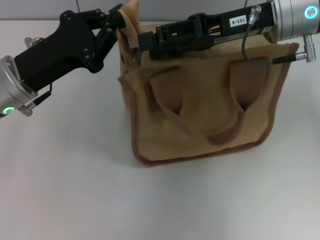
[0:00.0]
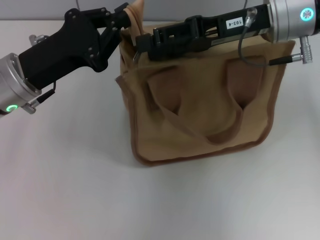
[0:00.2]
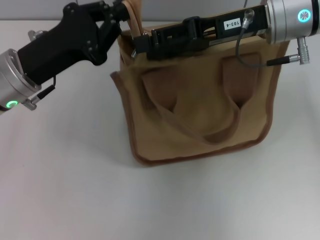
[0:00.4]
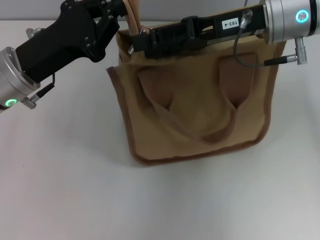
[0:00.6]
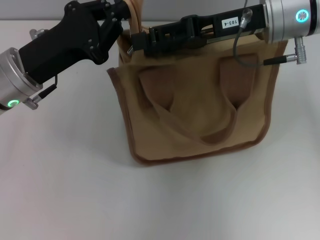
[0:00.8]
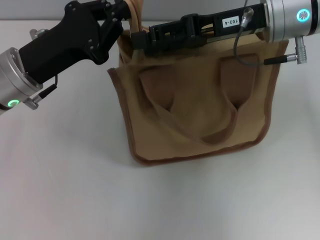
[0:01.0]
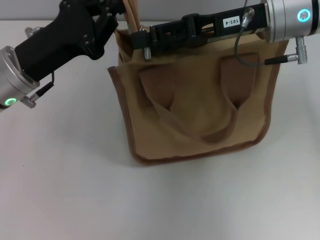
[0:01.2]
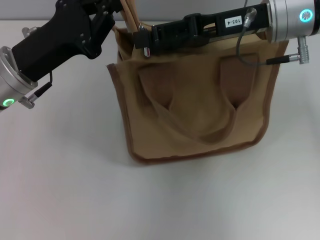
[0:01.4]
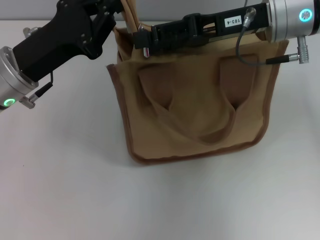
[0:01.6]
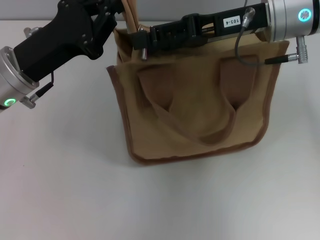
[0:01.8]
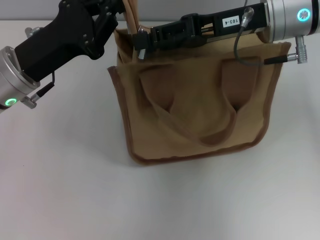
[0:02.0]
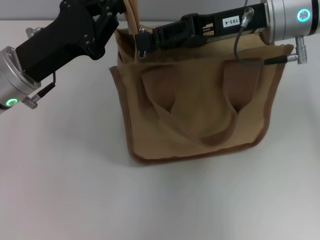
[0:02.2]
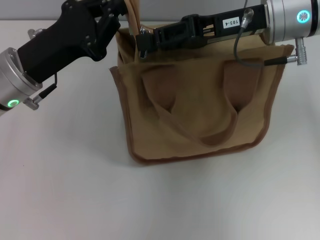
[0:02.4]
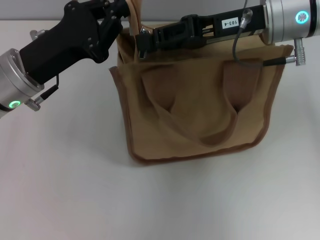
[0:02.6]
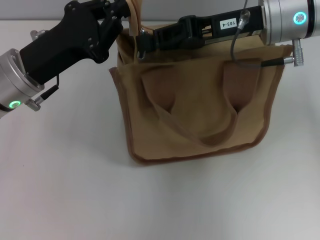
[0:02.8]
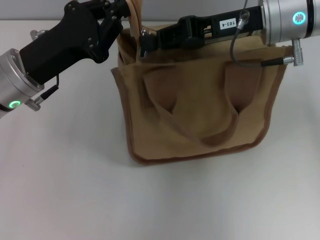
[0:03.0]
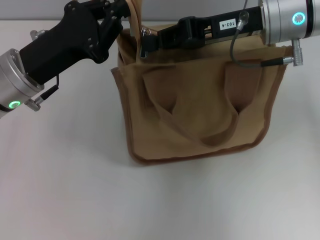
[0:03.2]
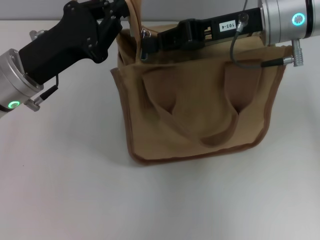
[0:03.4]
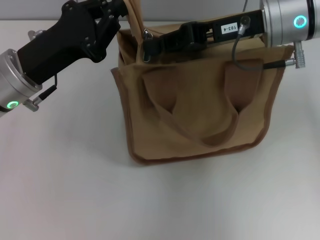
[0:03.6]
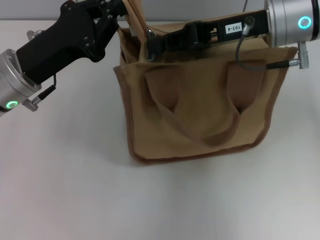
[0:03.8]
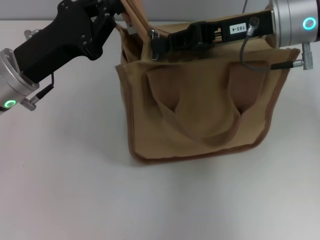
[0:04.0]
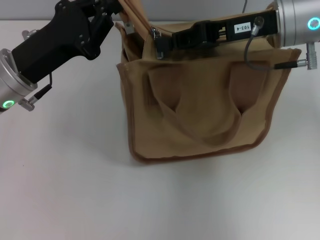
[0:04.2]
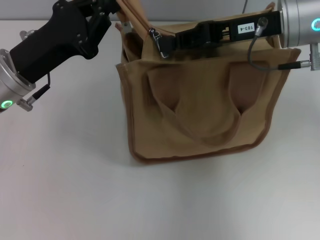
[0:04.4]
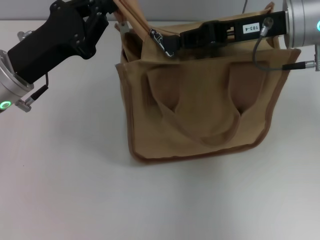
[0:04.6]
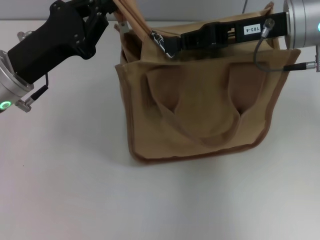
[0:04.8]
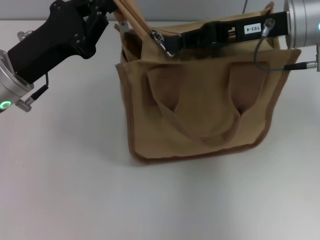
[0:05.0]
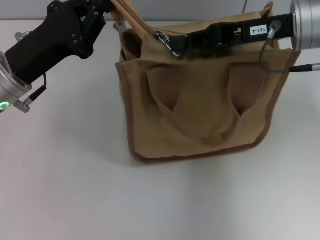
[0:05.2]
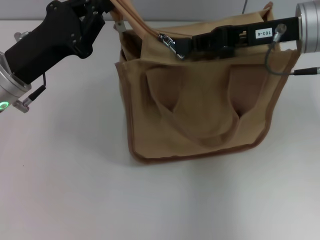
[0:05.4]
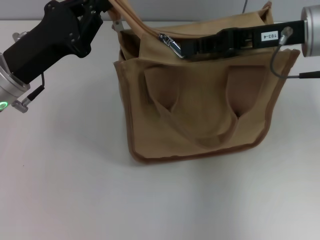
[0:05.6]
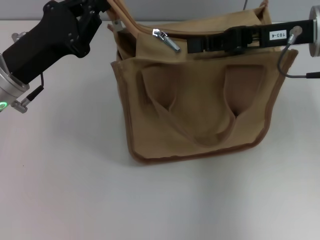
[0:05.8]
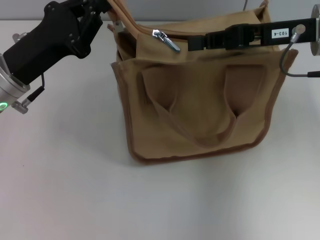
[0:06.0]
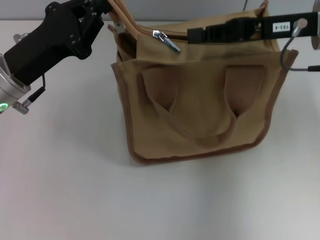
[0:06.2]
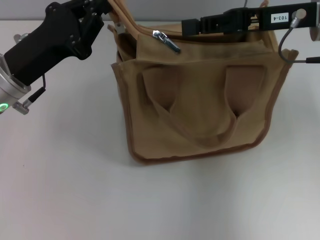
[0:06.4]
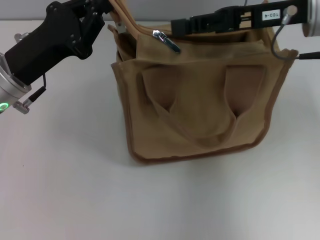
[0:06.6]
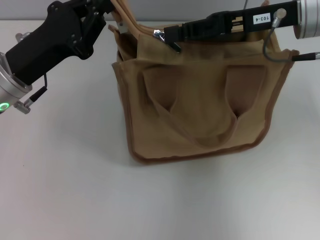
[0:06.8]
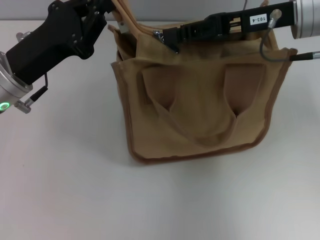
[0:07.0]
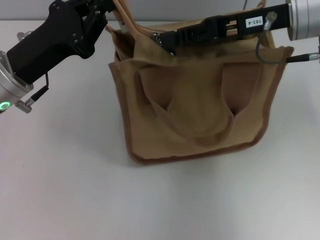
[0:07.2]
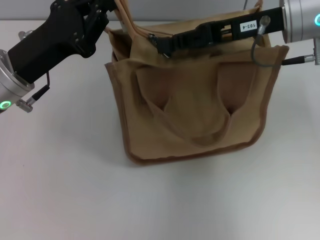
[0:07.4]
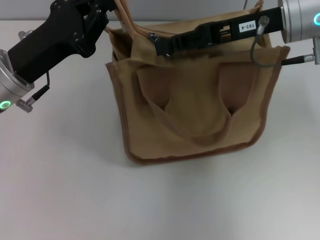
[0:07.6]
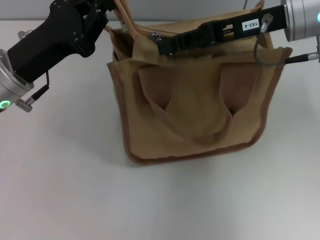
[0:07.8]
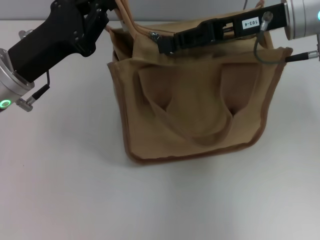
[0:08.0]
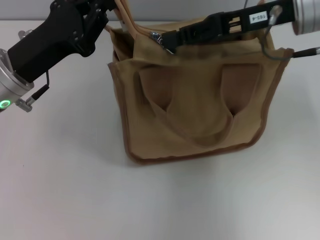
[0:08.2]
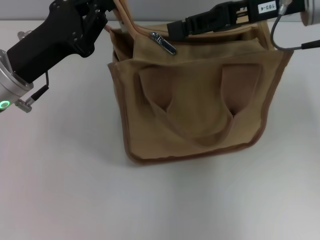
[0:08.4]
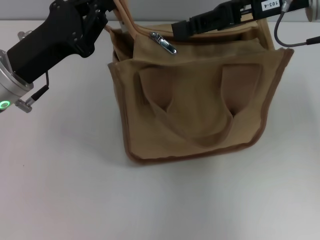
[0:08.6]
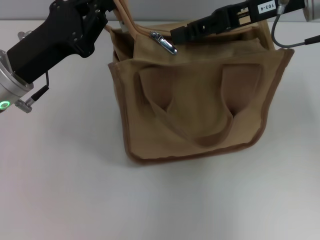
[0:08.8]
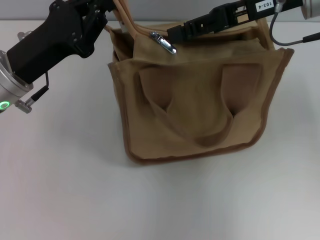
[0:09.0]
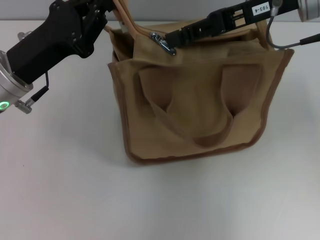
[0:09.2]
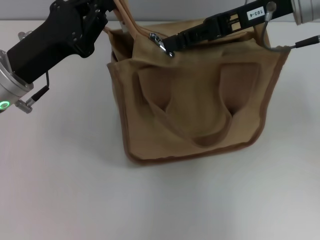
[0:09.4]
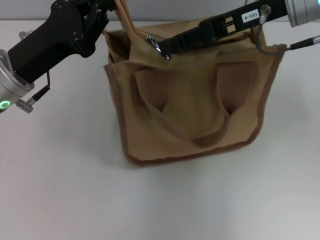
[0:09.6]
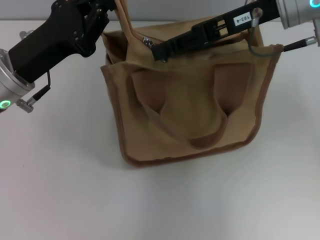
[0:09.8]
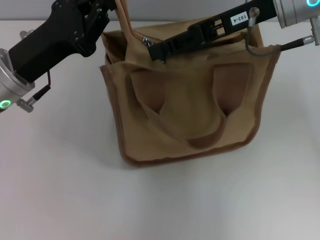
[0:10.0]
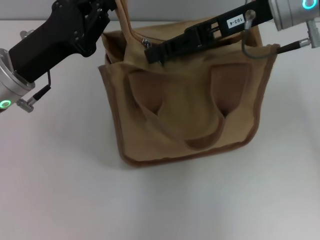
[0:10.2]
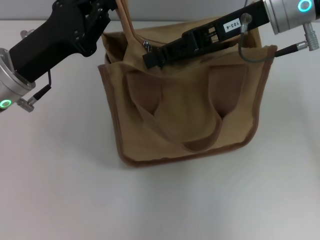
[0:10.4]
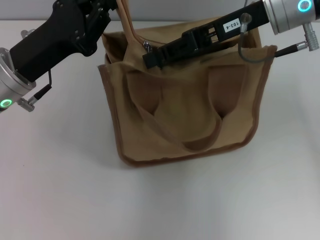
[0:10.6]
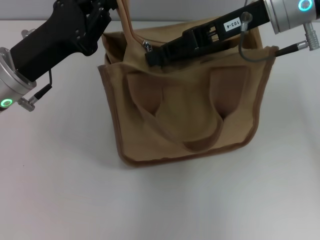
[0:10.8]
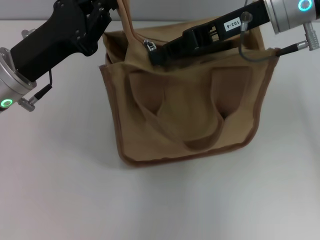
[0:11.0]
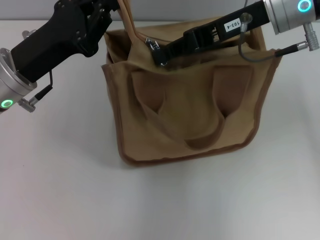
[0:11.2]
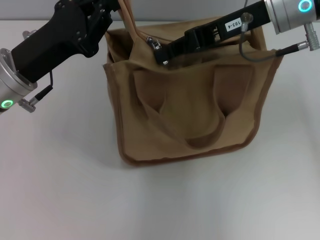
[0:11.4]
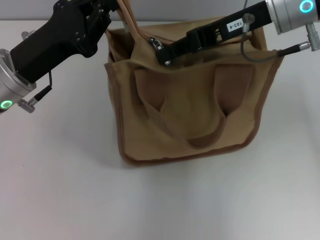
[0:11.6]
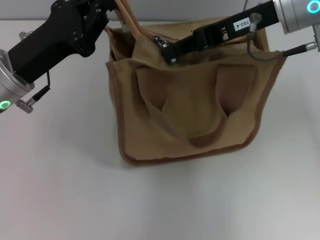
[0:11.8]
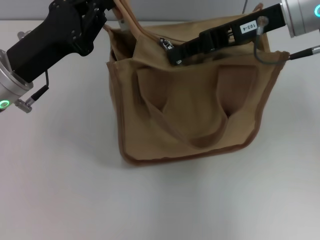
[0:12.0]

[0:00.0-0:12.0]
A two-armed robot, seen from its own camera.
0:00.0 to 0:01.6: The two grippers keep their place.
0:01.6 to 0:03.0: The right gripper closes up.
0:03.0 to 0:06.0: The grippers stay close to where they were, moving slightly.
0:06.0 to 0:07.6: The right gripper opens.
0:07.6 to 0:10.4: The grippers move only a little.
0:10.4 to 0:12.0: The right gripper closes up.

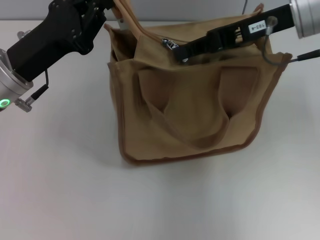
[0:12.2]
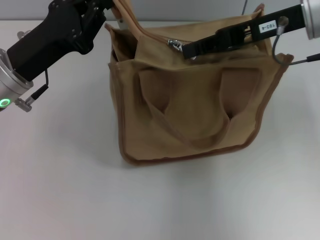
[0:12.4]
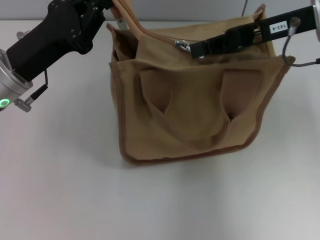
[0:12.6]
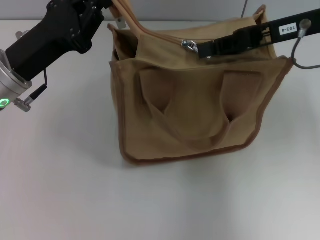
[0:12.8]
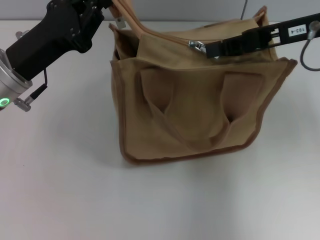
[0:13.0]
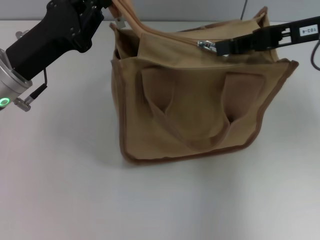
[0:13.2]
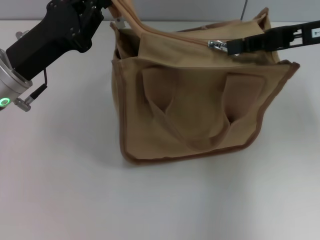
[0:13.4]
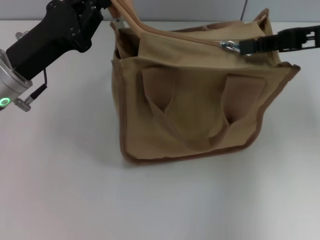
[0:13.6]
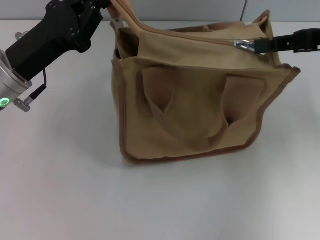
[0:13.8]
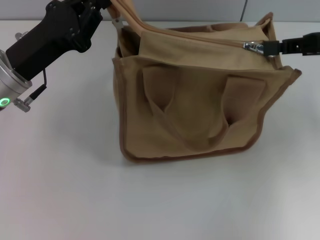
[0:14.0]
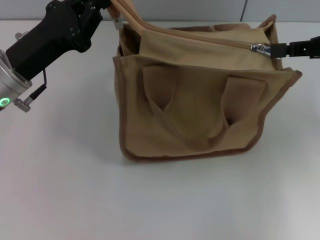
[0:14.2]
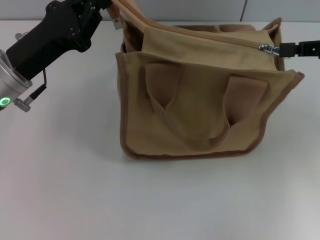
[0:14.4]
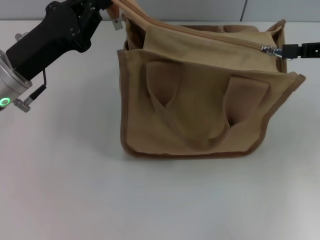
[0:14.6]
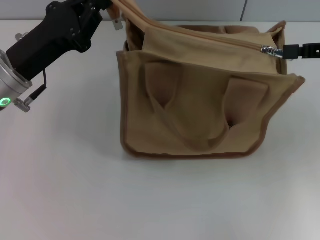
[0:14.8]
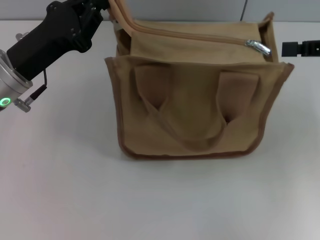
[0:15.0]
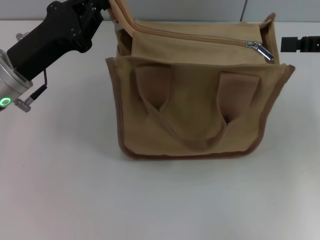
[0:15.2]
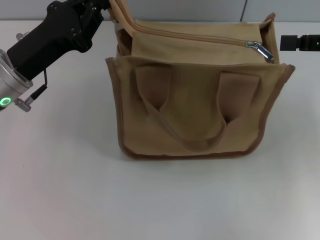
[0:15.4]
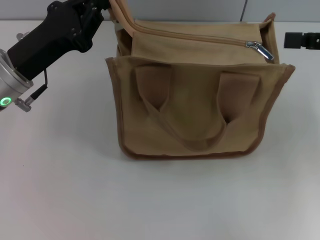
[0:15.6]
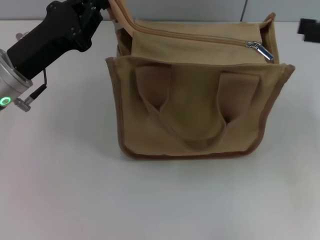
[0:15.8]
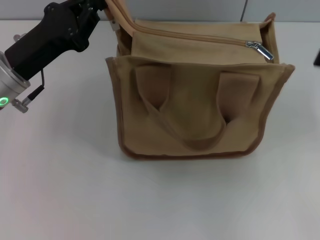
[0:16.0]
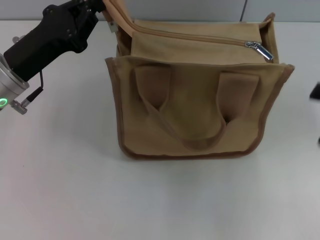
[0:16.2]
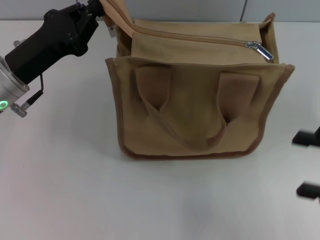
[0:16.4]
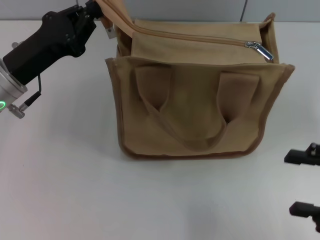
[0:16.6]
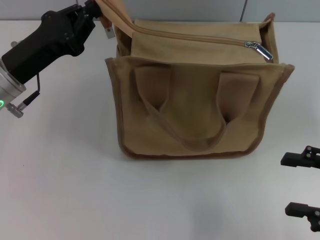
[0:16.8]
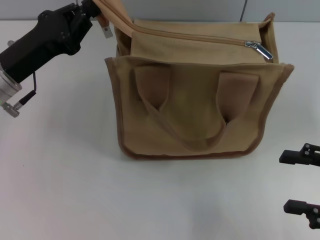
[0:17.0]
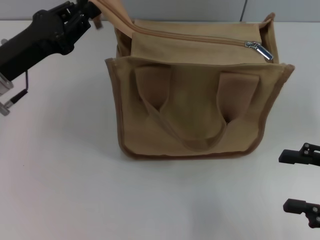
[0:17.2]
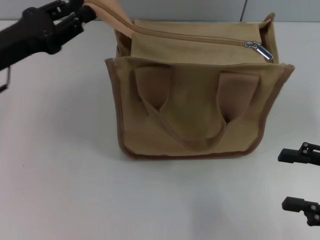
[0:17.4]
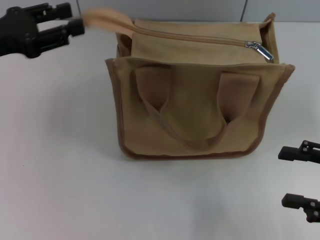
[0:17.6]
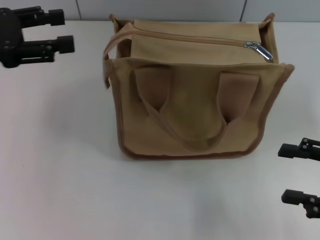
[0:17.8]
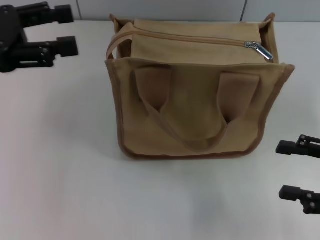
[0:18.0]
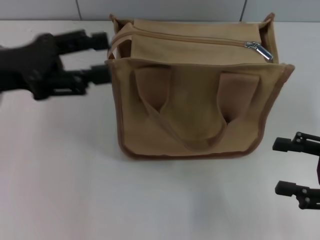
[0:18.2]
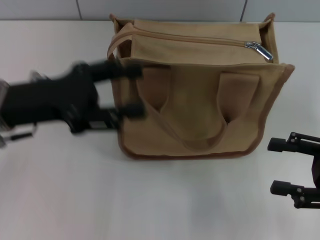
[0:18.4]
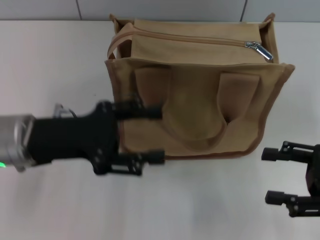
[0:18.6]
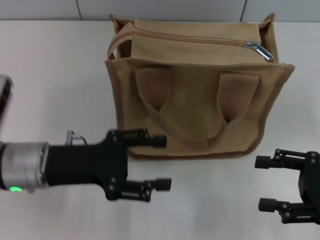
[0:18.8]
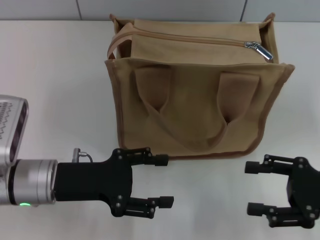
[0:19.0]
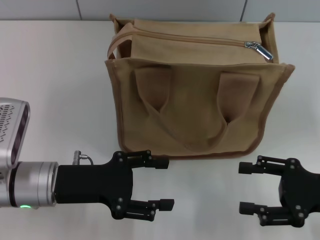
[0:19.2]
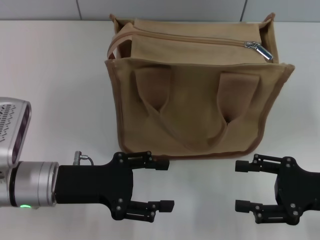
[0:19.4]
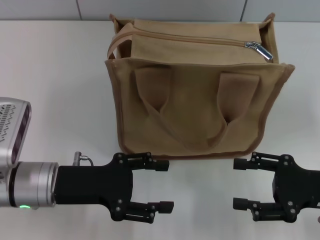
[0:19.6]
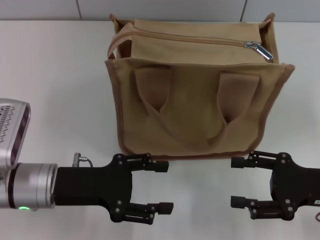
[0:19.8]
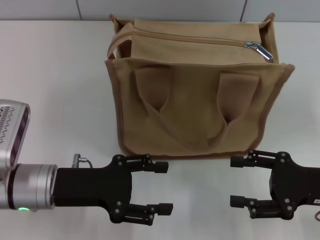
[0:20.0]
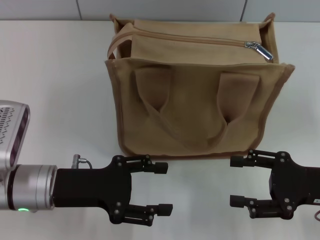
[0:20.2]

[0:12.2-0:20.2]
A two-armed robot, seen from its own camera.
Step, 0:12.2 to 0:15.2: Pull up the zipper with your right hand.
Step, 0:15.4 to 0:18.0: Grab the zipper with your left hand.
0:12.2 to 0:13.8: The right gripper shifts roughly 10 cm to the right.
0:13.8 to 0:15.4: The right gripper opens its fingers.
0:15.4 to 0:17.0: The right gripper heads backward and downward, covering some 15 cm, and opens.
0:17.0 to 0:18.6: The left gripper moves roughly 5 cm to the left and comes back, and opens.
0:18.6 to 0:20.2: The left gripper shifts approximately 5 cm downward.

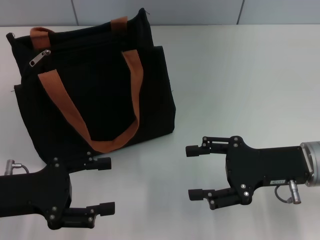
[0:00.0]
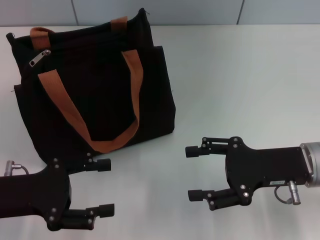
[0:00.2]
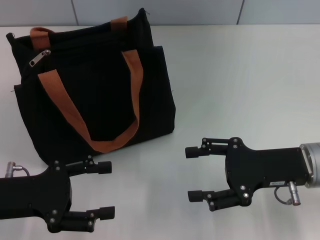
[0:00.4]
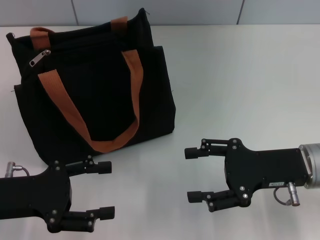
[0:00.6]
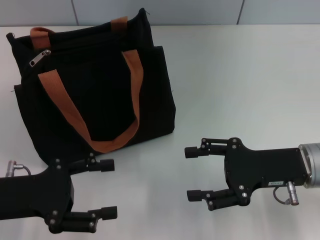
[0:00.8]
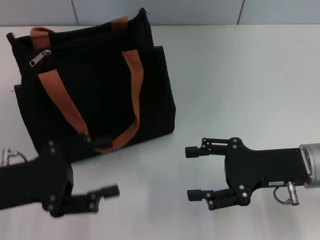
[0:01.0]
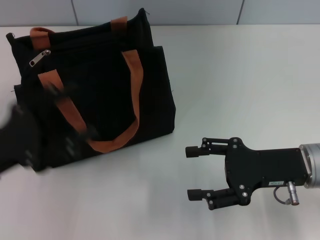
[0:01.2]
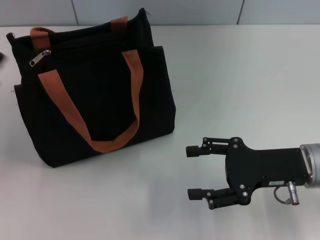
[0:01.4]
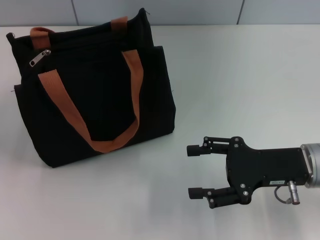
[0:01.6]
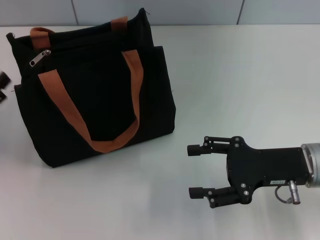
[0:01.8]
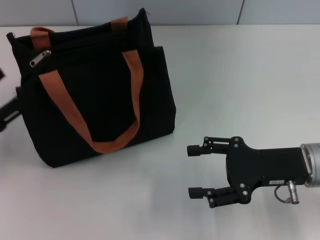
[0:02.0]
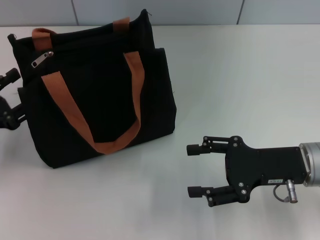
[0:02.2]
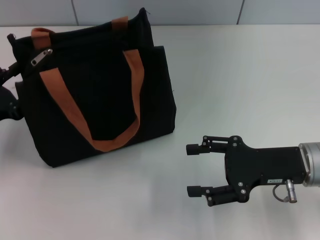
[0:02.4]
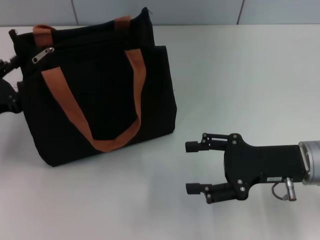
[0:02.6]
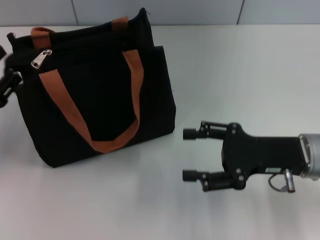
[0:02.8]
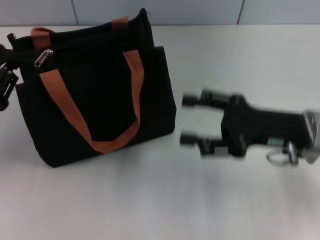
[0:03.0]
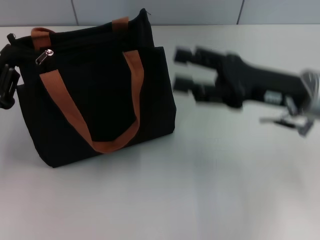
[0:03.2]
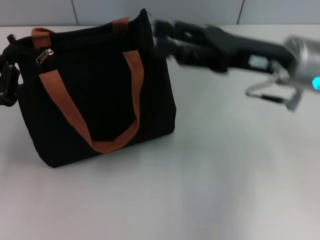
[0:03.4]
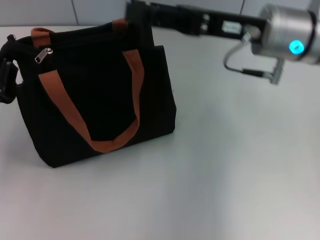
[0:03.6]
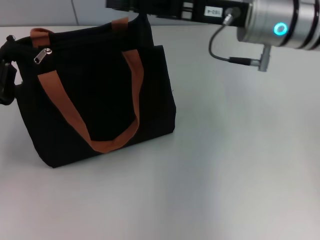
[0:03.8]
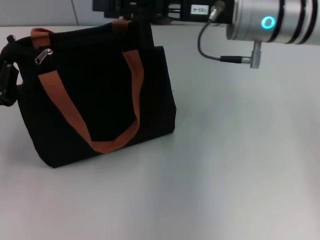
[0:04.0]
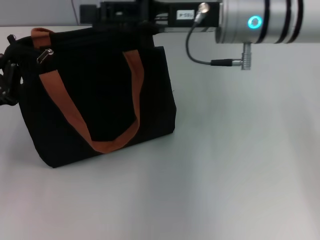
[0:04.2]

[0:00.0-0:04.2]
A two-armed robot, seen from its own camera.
0:01.4 to 0:02.8: The left gripper goes about 5 cm forward.
0:02.8 to 0:04.2: The right gripper travels upward, forward and to the left by some 20 cm. The left gripper closes its fingers.
